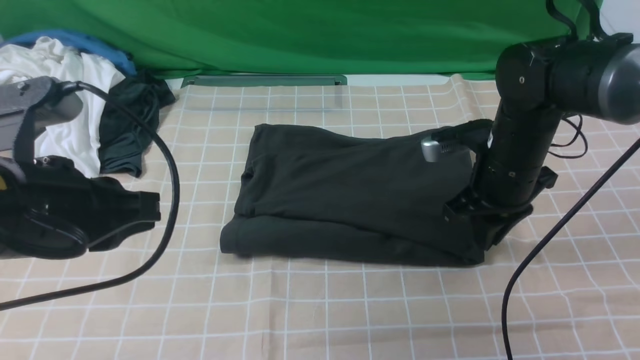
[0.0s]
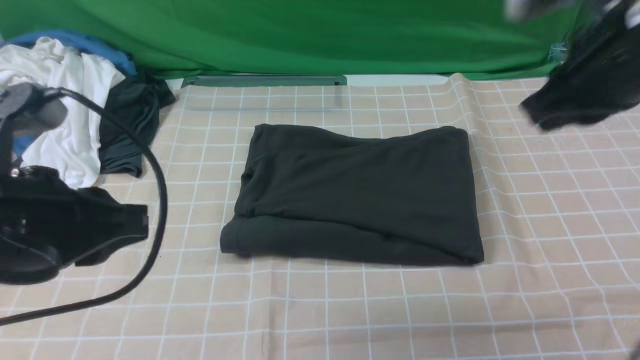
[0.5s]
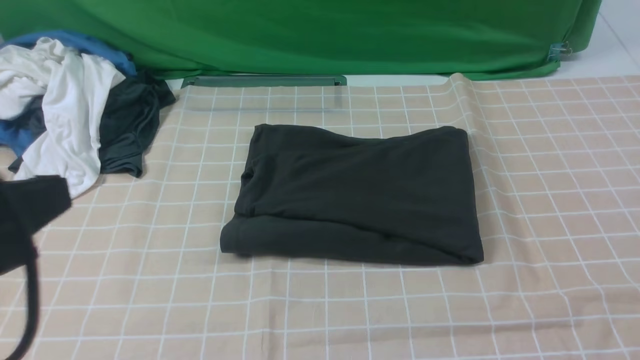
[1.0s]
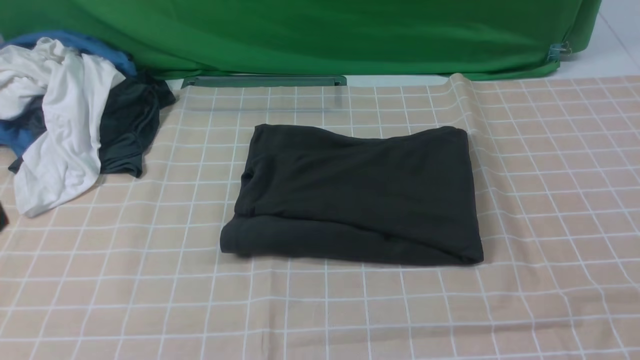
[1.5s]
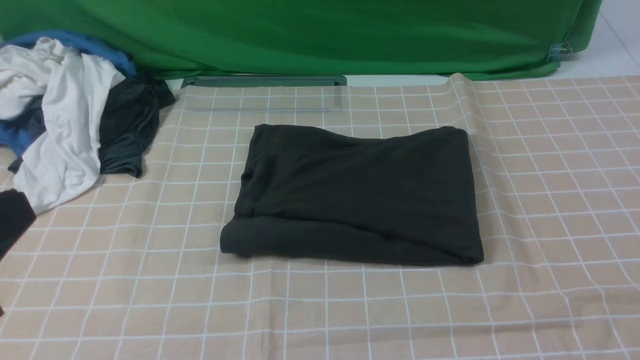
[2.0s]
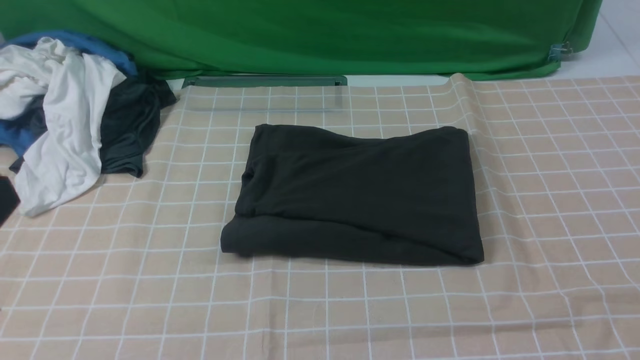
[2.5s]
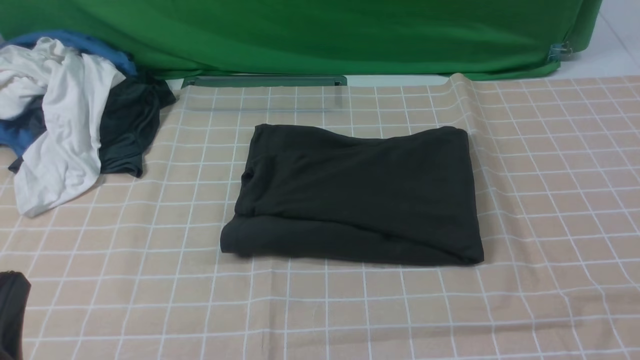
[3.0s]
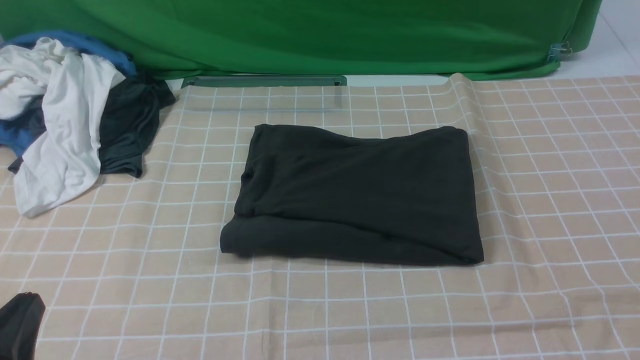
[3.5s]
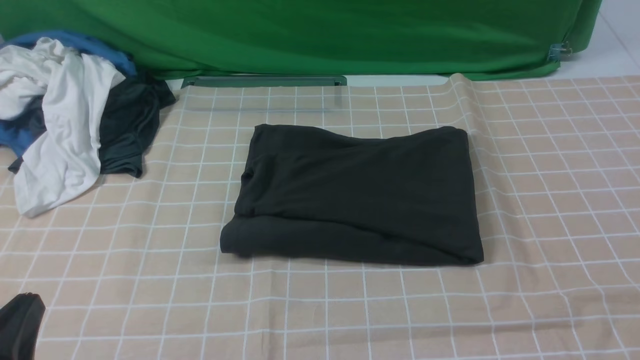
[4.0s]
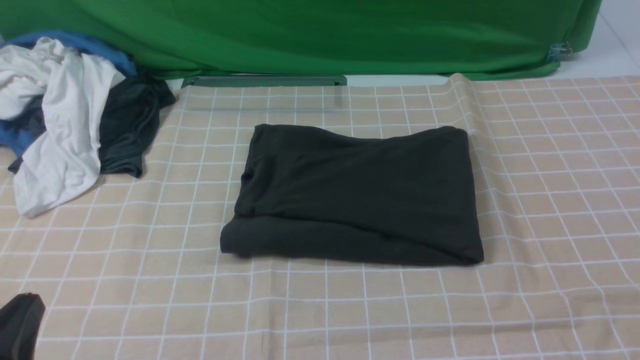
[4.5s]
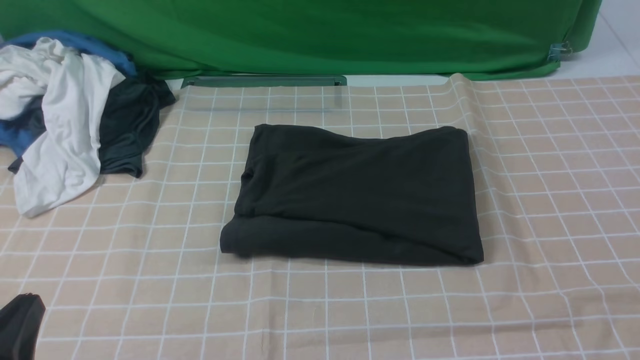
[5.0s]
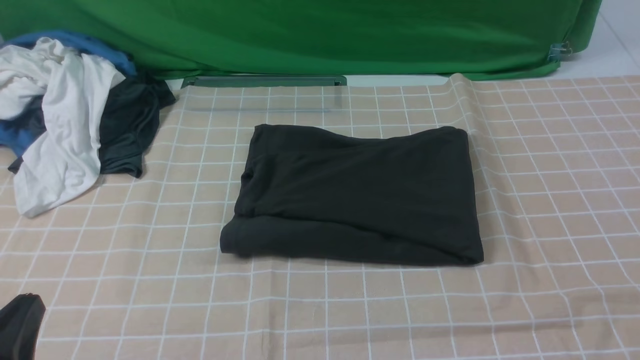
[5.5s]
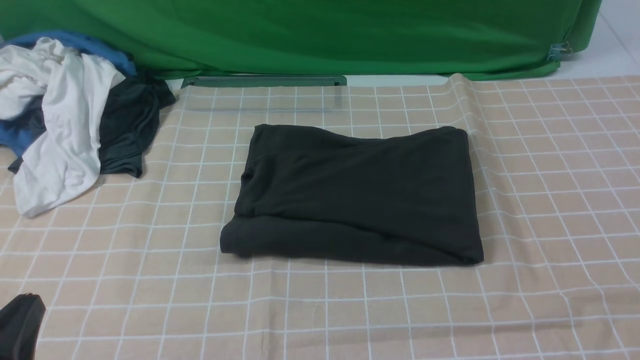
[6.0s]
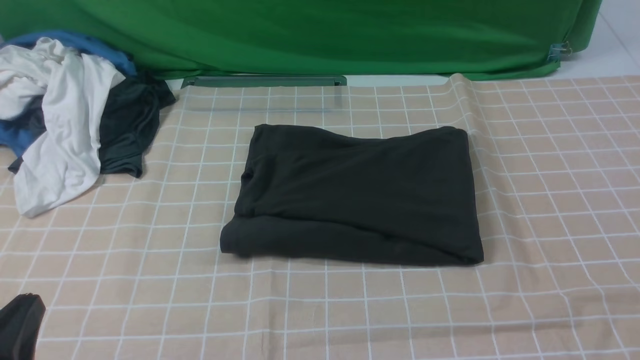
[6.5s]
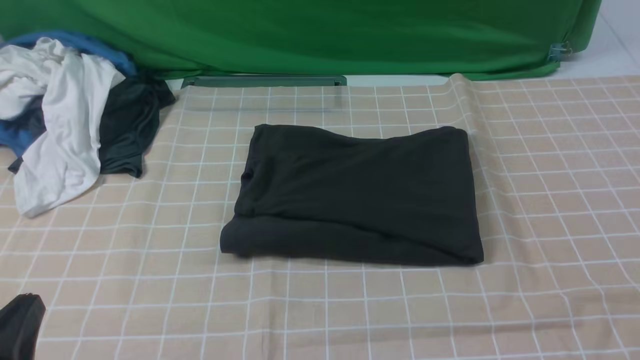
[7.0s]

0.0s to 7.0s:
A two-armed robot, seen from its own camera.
0.0s to 2.0s: The left gripper travels backward by about 10 cm. The right gripper goes some 35 cm backward and upward.
2.0s to 3.5s: The left gripper is displaced downward by some 15 cm.
5.0s to 7.0s: Neither gripper changes place.
